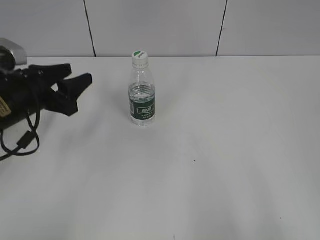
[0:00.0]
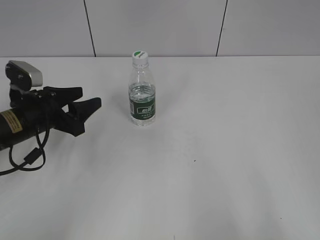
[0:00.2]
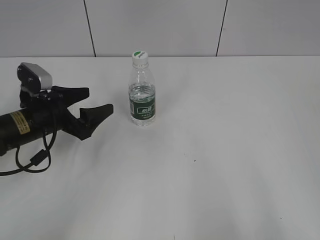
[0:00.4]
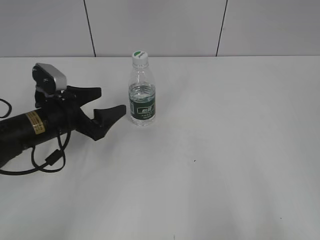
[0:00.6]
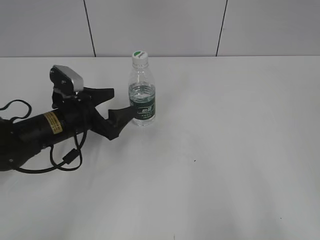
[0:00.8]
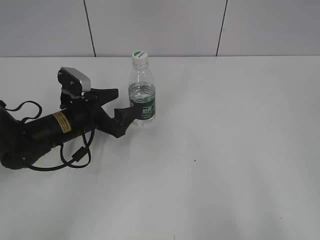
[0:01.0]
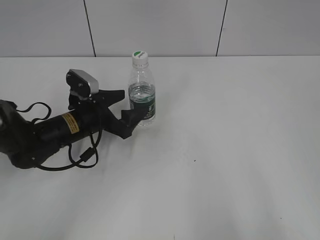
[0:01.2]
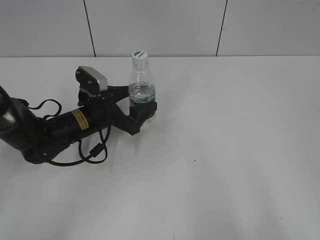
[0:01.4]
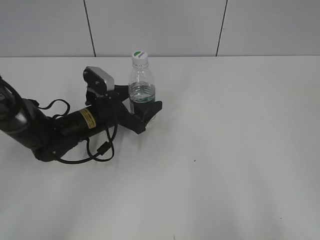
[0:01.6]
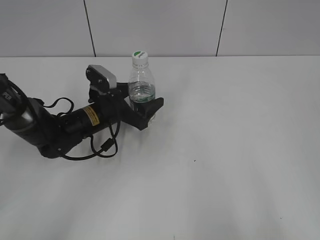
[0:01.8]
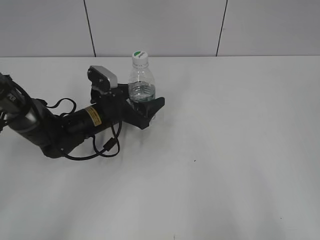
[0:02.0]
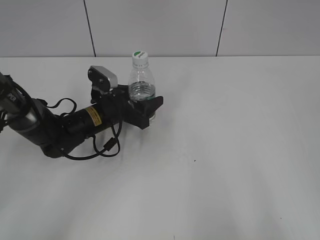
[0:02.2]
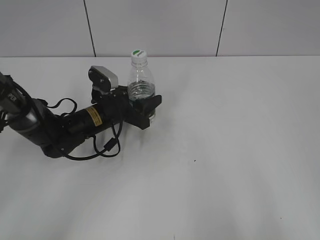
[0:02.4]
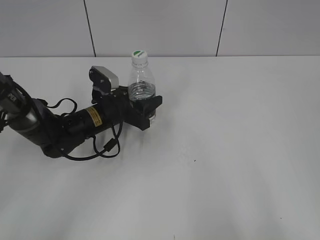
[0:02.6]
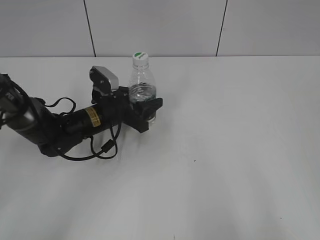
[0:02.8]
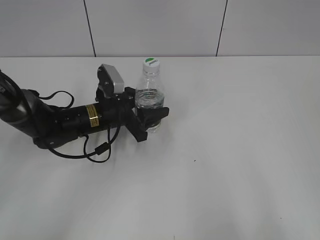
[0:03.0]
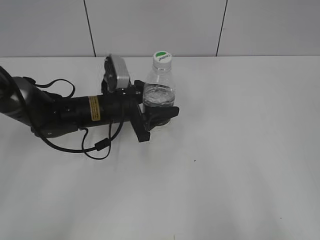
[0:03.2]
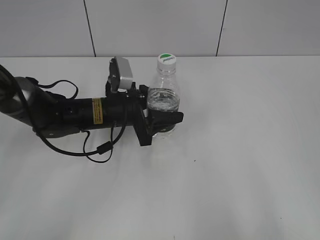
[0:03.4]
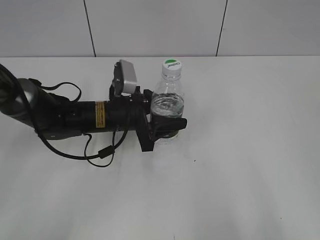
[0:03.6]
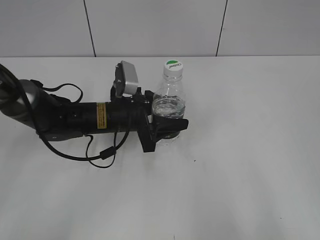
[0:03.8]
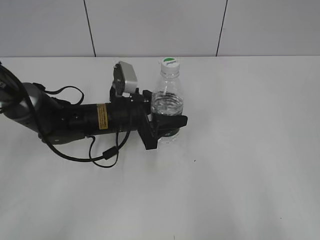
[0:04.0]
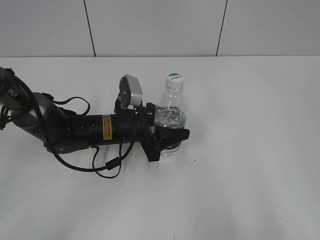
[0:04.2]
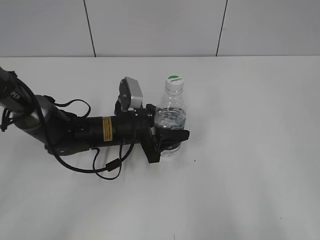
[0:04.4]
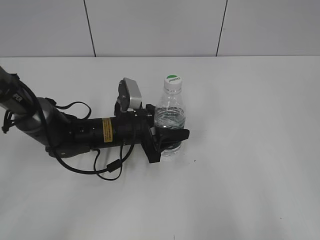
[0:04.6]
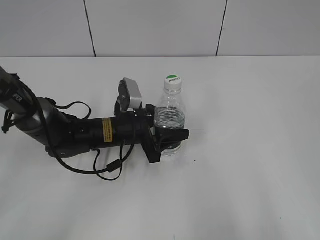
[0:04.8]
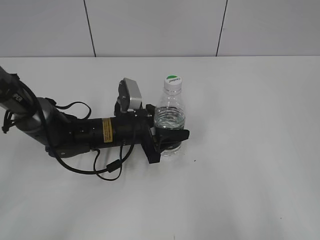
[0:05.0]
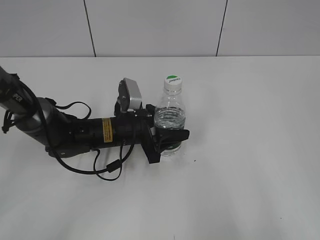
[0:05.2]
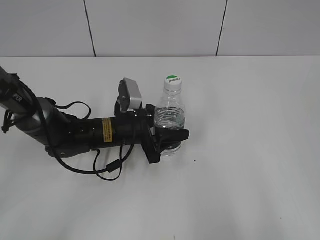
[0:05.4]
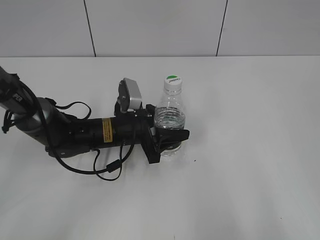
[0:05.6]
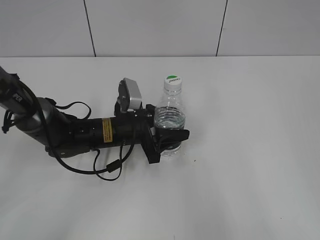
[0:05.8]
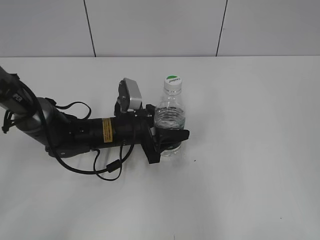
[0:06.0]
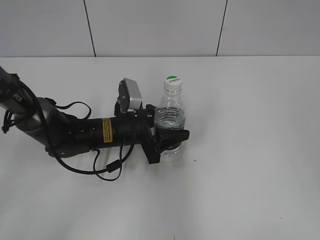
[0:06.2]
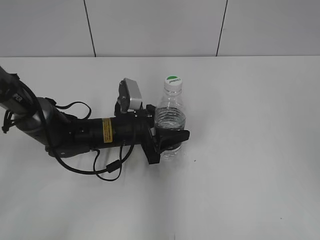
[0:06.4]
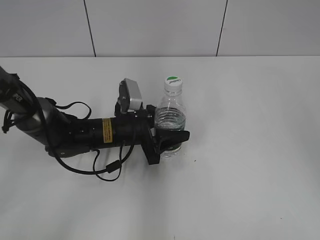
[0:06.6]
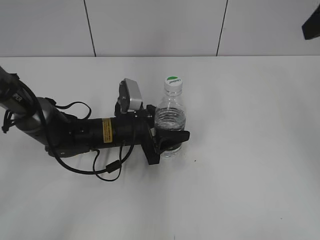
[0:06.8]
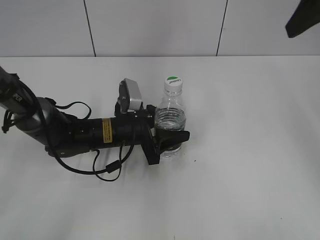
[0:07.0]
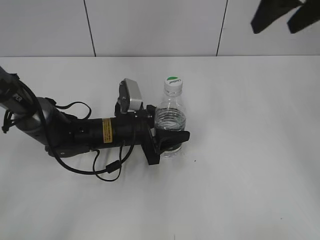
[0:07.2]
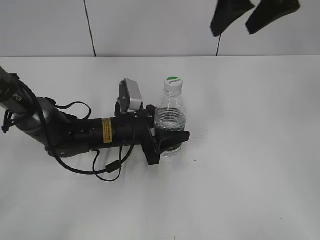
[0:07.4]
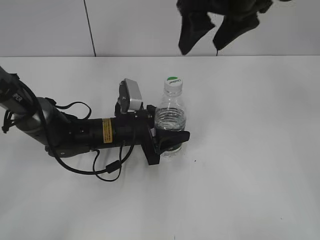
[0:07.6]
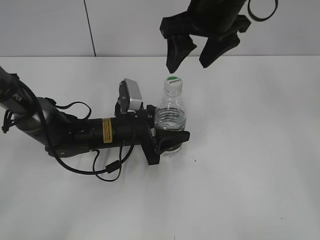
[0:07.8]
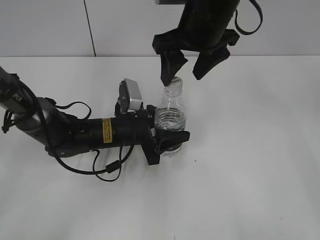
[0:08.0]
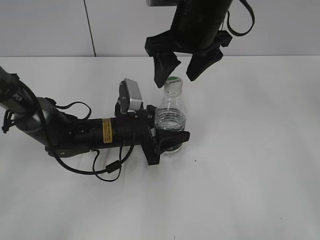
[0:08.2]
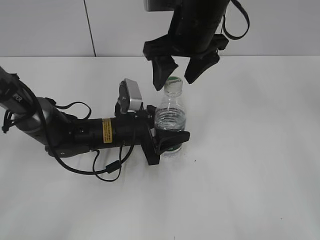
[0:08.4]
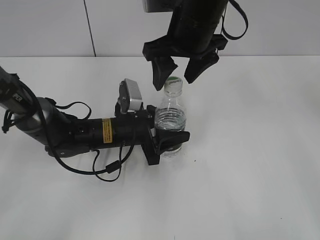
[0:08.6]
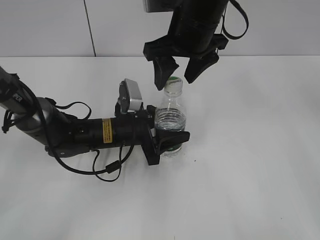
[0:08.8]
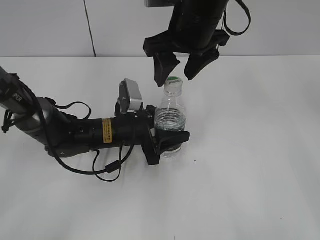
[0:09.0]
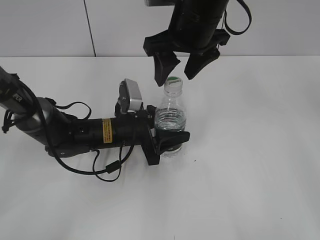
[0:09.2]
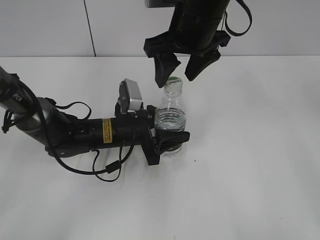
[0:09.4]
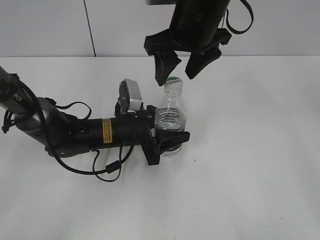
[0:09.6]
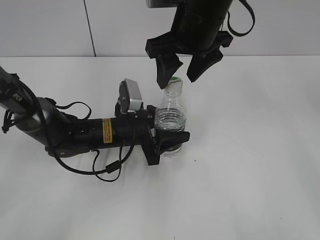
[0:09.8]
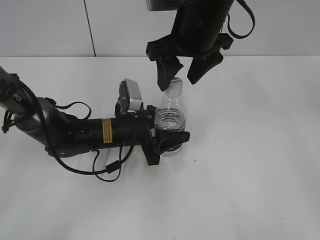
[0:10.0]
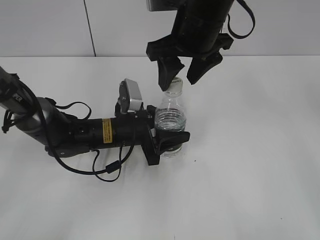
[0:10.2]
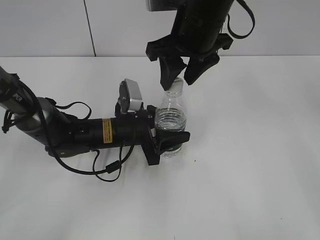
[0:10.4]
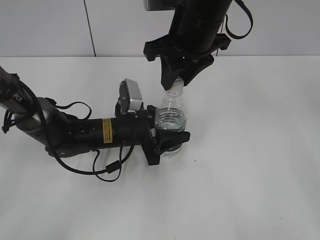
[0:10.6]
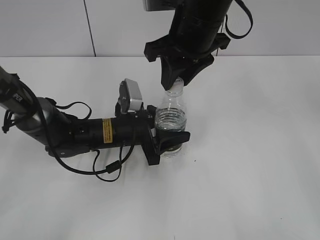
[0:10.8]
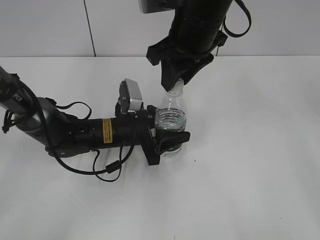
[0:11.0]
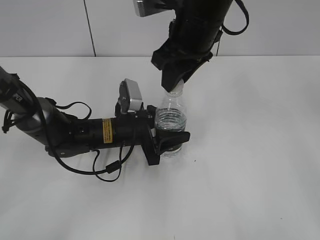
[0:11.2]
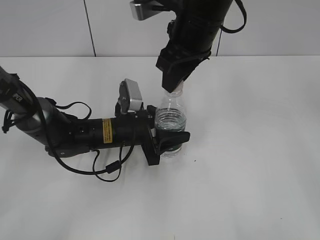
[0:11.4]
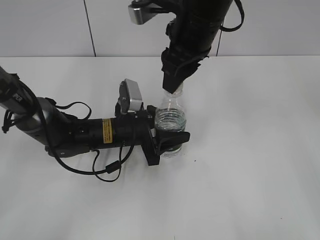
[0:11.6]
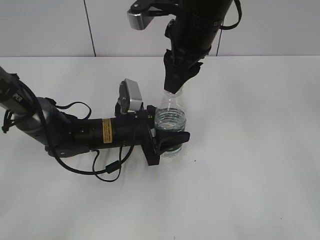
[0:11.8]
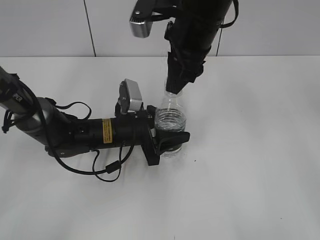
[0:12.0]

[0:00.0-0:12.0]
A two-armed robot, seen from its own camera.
Step, 0:00.0 to 0:02.6: Grasp the bottle and move it to the center of the table with the left gripper.
Step, 0:02.8 to 0:06.8: Lift the bottle and move it to the center of the table with the left gripper.
0:00.0 to 0:01.6: The left gripper goes approximately 15 cm to the right, downward and forward, and opens.
0:01.6 to 0:03.0: The left gripper closes up.
0:03.0 to 0:04.4: The left gripper moves about 5 cm.
0:04.4 to 0:06.0: The grippers move only a little.
0:06.0 to 0:07.6: The right gripper shifts roughly 35 cm forward and to the left.
0:07.6 to 0:09.0: The right gripper goes some 10 cm downward and to the left.
0:09.0 to 0:10.4: The two grippers keep their place.
0:10.4 to 0:12.0: The right gripper closes up.

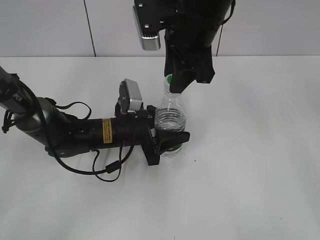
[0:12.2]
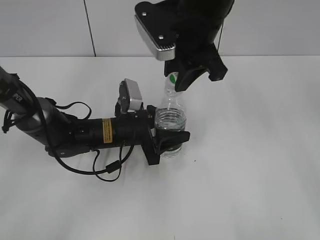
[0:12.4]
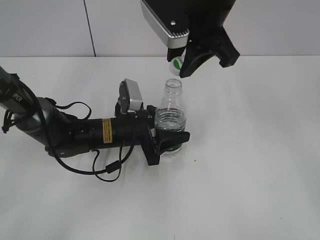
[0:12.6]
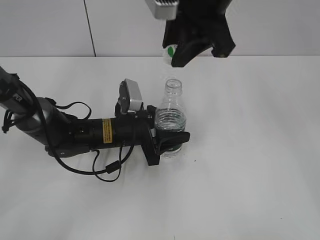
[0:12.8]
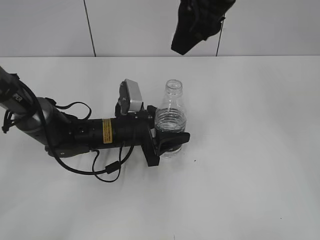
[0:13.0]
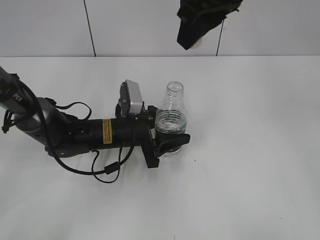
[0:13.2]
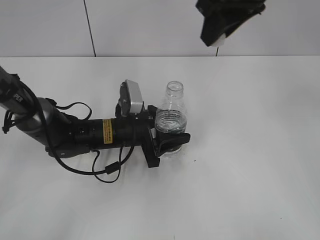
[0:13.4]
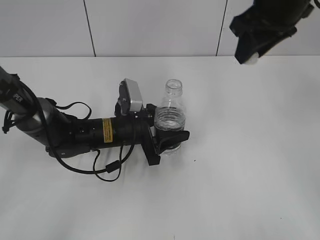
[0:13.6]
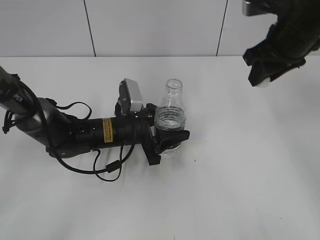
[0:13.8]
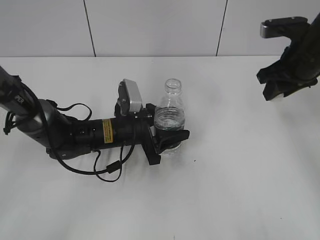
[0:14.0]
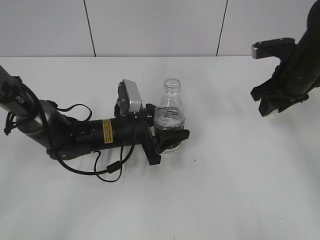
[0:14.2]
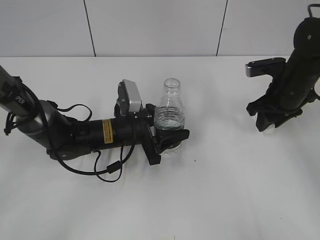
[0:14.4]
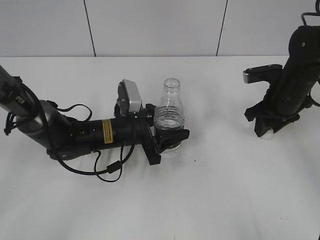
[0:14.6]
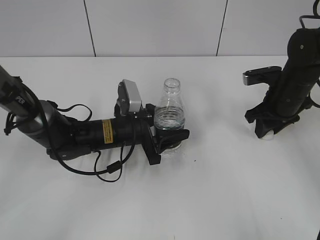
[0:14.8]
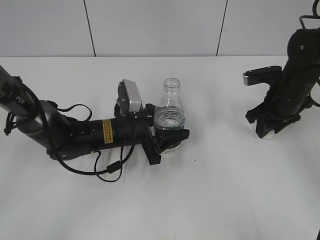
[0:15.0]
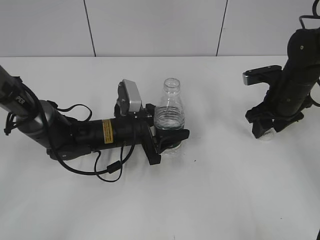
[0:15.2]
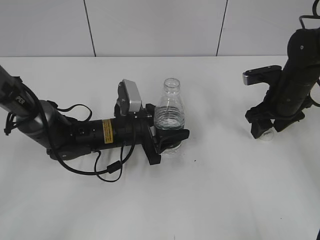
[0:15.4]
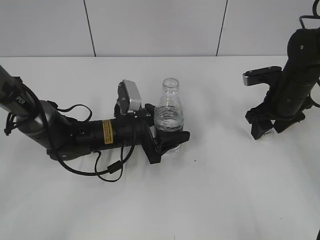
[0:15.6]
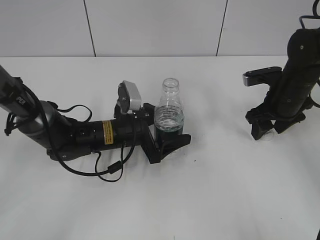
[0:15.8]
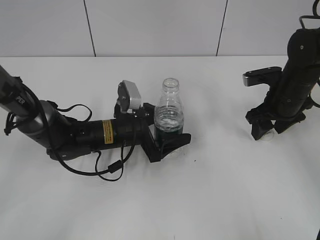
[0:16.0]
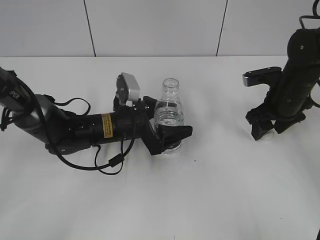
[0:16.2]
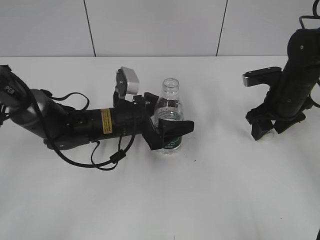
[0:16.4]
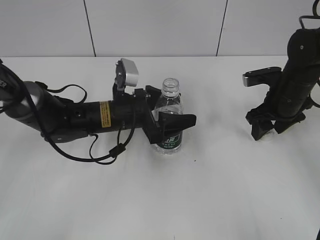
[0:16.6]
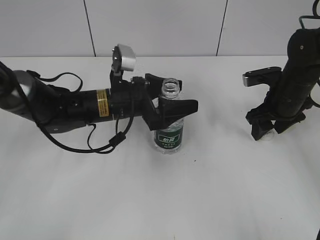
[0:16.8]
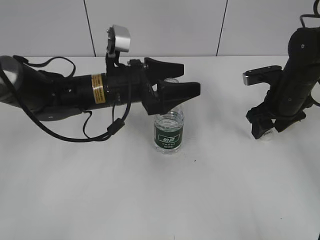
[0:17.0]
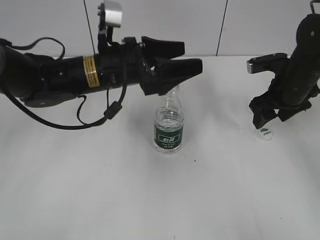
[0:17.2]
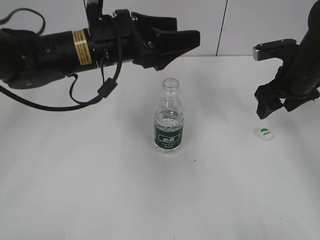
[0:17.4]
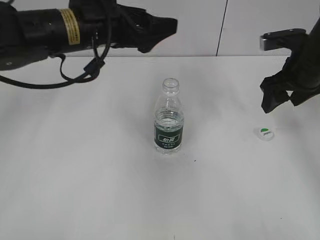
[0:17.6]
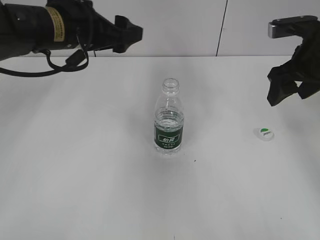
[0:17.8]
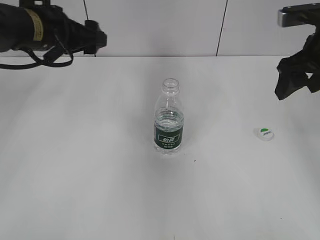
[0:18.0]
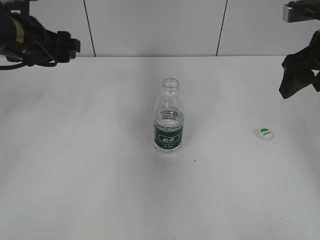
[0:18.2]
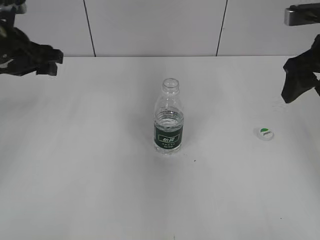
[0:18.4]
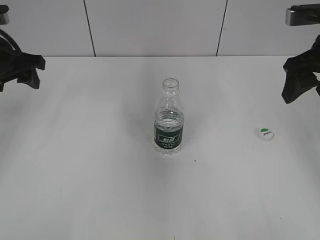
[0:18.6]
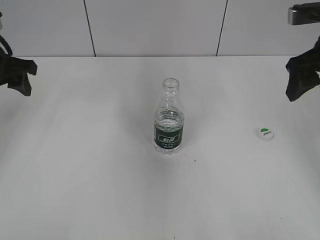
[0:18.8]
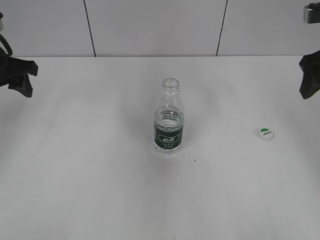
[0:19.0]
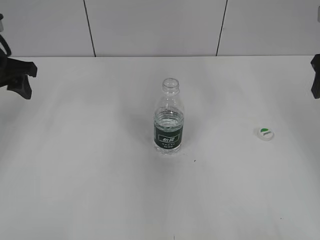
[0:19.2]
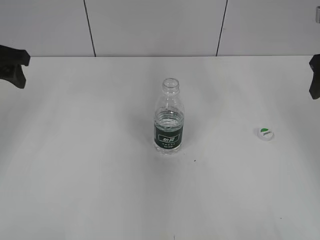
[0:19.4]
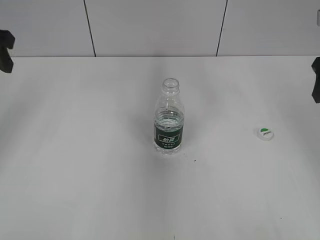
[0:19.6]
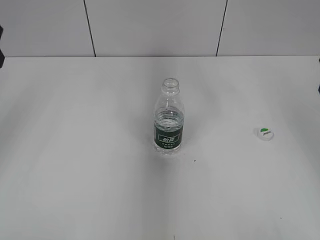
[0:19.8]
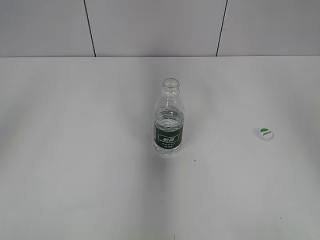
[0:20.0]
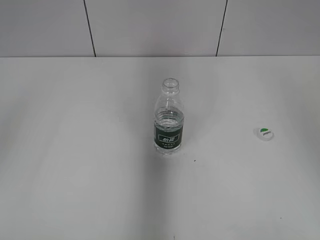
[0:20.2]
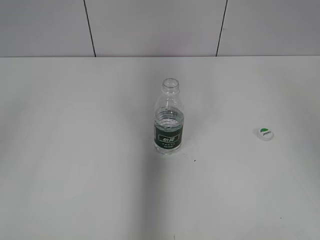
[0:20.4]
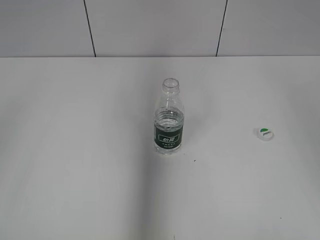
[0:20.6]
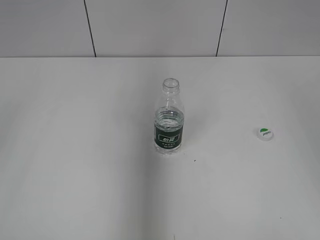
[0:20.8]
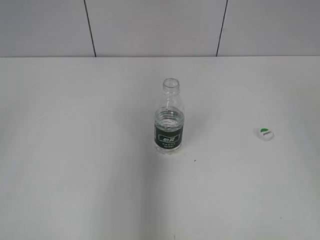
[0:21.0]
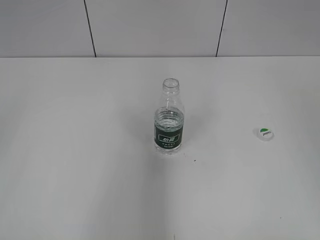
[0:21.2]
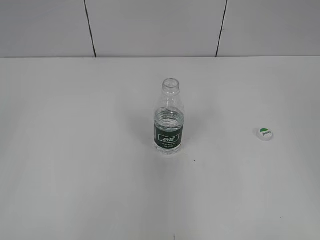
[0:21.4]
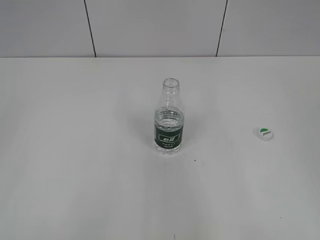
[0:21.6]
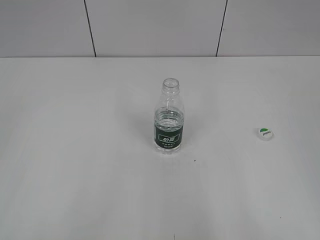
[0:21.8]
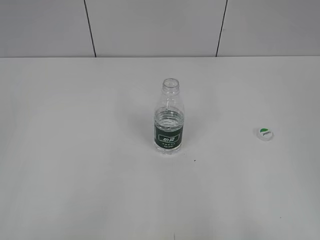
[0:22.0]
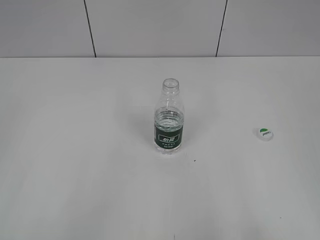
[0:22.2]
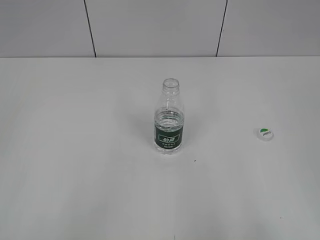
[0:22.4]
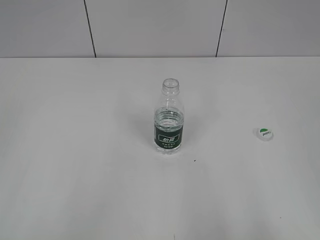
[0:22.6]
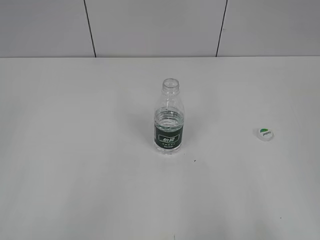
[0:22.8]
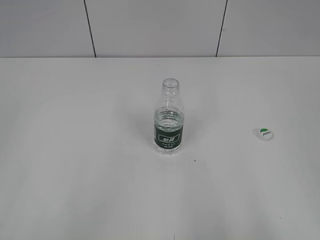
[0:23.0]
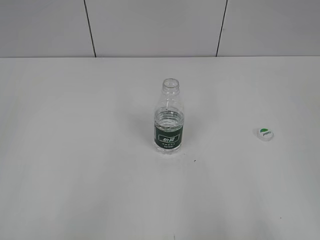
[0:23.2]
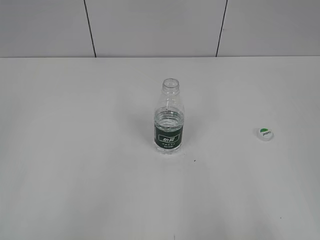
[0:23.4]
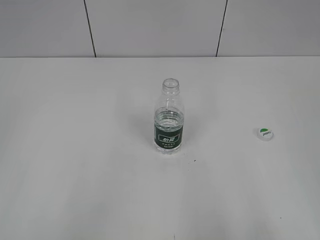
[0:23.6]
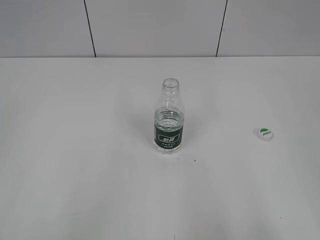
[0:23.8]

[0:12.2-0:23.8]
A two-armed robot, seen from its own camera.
Step, 0:13.0 to 0:15.2: Place the bottle cap on the table with the right gripper.
Step, 0:15.4 to 0:16.8: Place the bottle on the table with the left gripper.
0:12.2 to 0:13.6: The right gripper shifts approximately 10 cm to the right and upward.
0:13.6 to 0:15.0: The right gripper moves downward and to the right, some 25 cm.
0:15.0 to 0:16.6: The right gripper opens up. The left gripper opens its fingers.
0:16.6 to 0:18.0: The right gripper shifts approximately 15 cm upward. Meanwhile the left gripper shifts approximately 20 cm upward and to the left.
0:18.0 to 0:19.4: The left gripper goes some 15 cm to the left, and closes up, while the right gripper ends up some 5 cm from where it was.
0:19.4 to 0:21.0: Both grippers move backward and upward, some 25 cm.
0:21.0 to 0:22.4: The right gripper shifts about 20 cm backward and downward; the left gripper moves downward and backward, roughly 10 cm.
